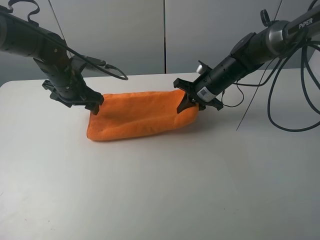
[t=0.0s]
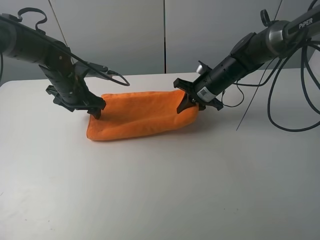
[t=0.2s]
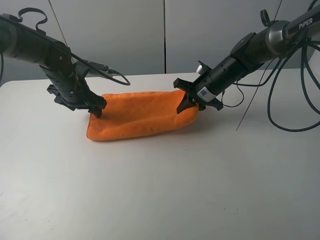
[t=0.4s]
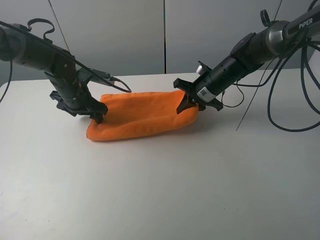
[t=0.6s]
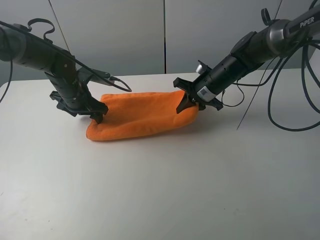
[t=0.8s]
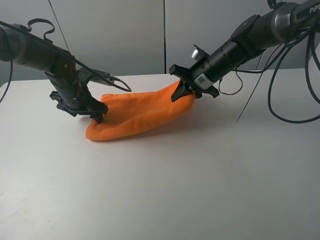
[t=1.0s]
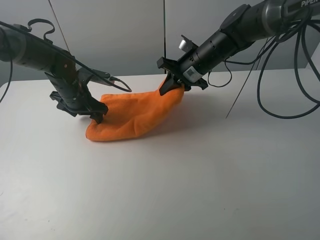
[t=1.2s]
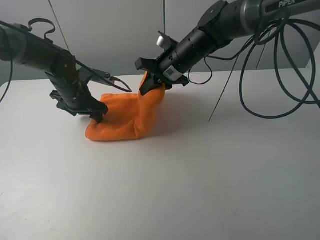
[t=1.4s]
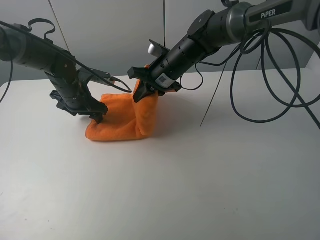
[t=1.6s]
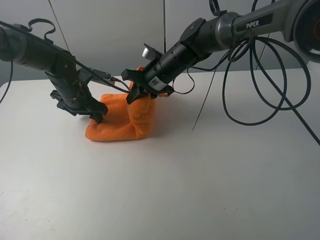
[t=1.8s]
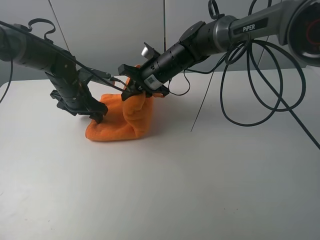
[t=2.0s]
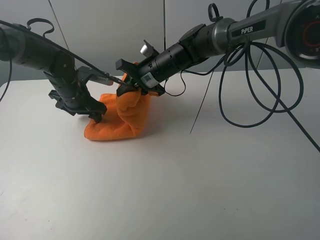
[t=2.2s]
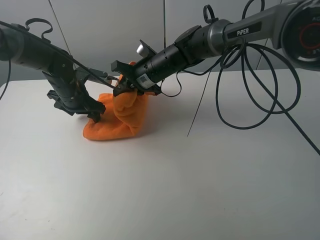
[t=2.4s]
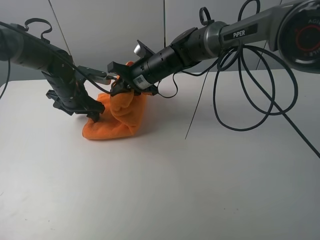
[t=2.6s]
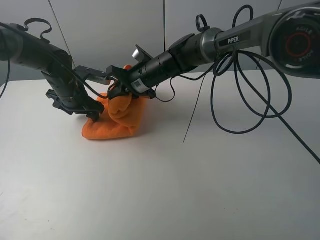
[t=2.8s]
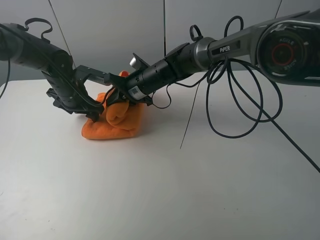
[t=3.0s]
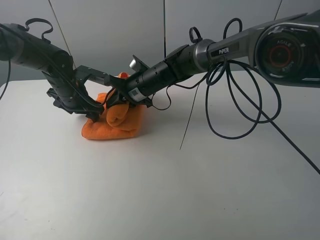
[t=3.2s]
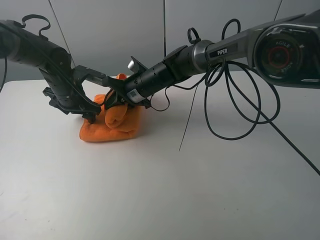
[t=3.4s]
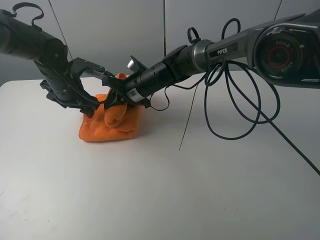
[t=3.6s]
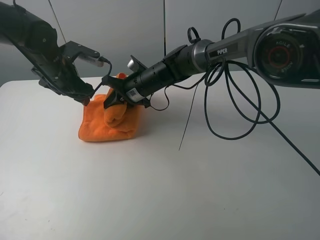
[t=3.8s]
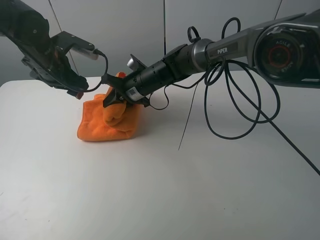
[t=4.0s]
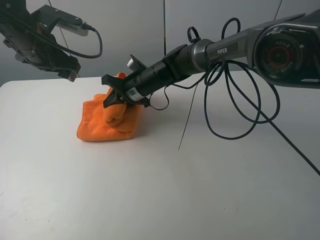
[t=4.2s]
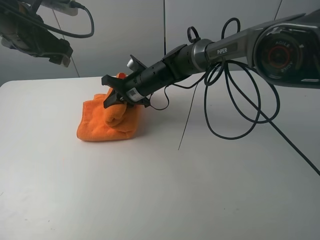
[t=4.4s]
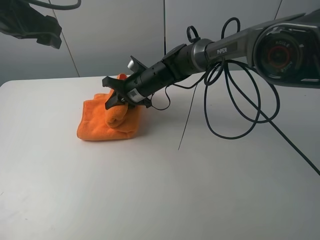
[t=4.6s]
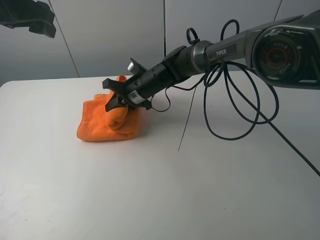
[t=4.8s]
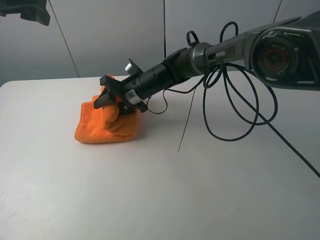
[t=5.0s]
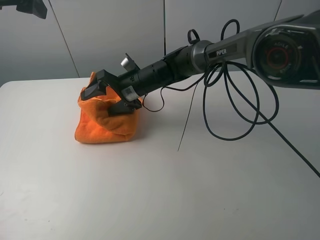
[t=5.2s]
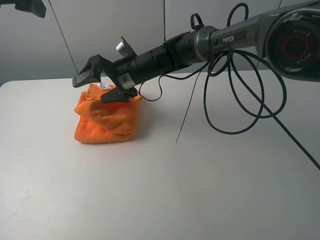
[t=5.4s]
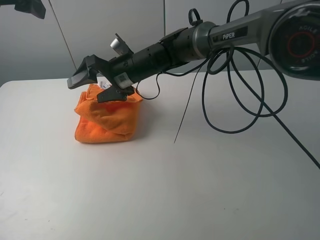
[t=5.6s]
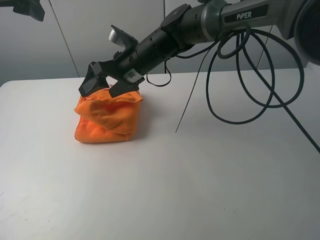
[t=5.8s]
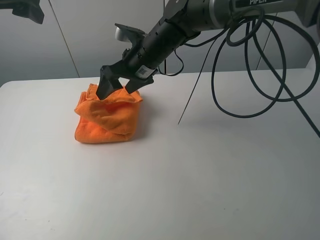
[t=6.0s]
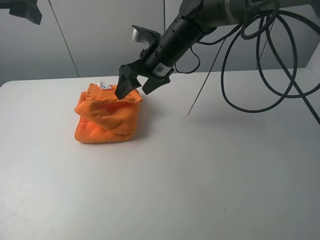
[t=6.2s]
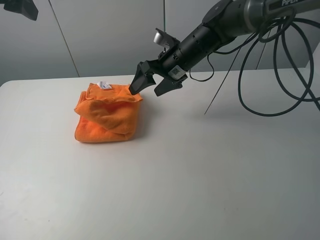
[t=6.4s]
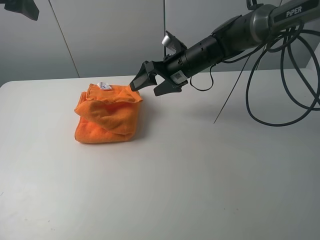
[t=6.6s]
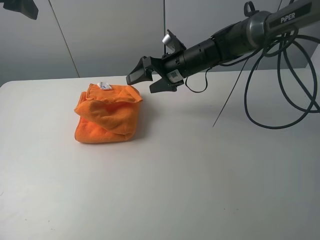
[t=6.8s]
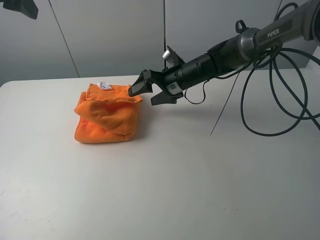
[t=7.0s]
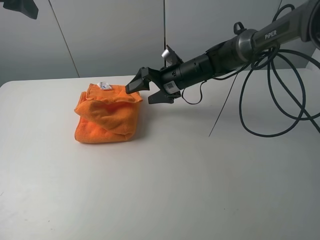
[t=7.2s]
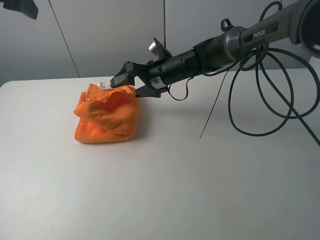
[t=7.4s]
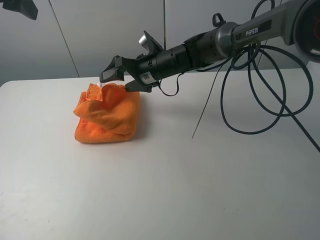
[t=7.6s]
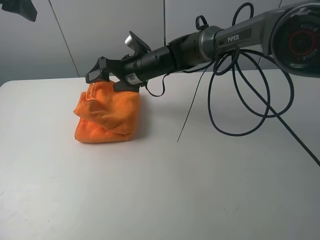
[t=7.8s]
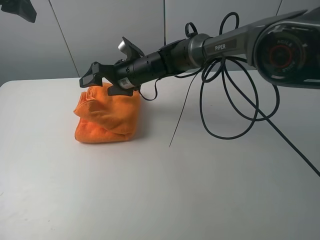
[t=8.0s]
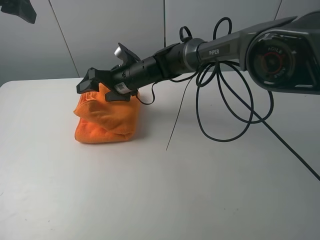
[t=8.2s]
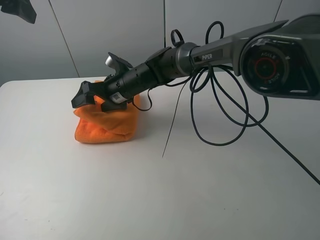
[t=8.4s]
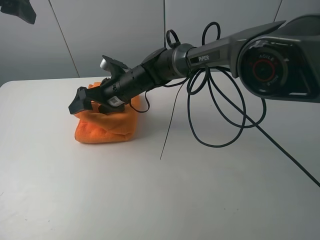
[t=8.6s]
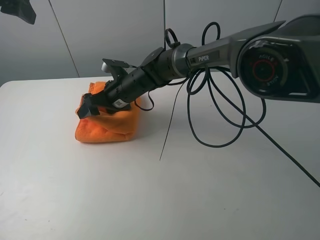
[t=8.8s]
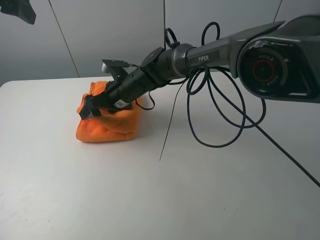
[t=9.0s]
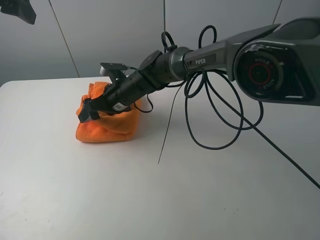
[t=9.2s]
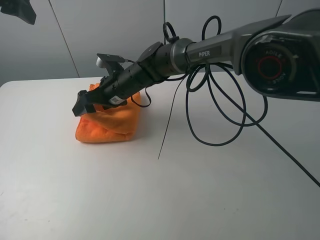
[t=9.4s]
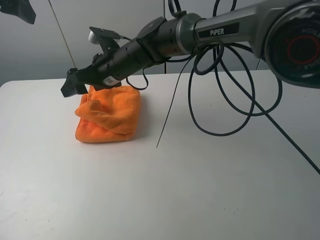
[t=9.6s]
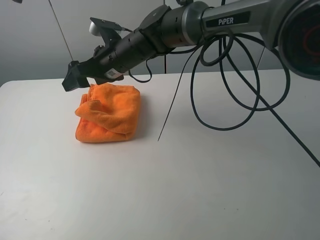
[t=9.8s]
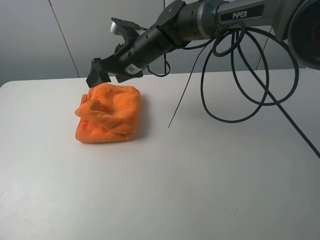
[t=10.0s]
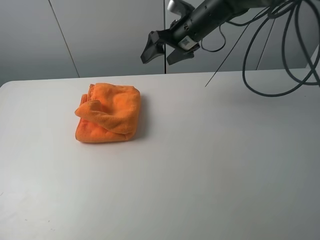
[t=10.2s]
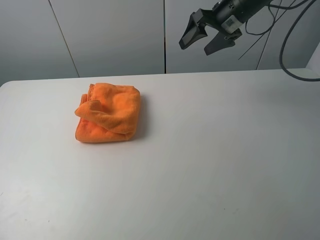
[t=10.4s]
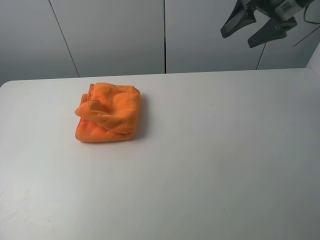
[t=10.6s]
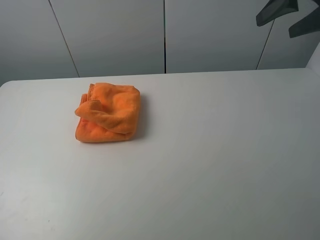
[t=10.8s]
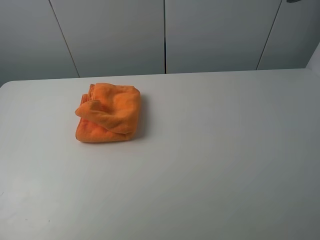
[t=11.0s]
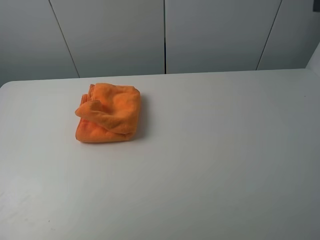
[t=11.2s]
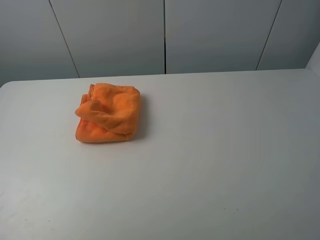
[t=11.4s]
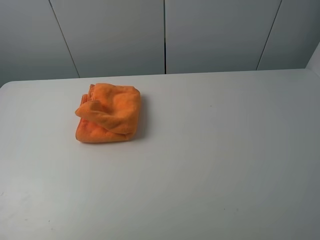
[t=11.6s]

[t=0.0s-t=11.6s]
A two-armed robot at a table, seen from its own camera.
Task of the whole recording: fold the towels on the table.
Step, t=0.0s to t=5.8s: Fold the orange towel from right to left with right gripper.
Step, t=6.0s to t=9.8s: Arrange the orange towel with the right hand.
t=0.0s to t=1.4s: The right gripper moves to the left and upward, roughly 10 cm.
t=1.4s to t=2.8s: The right gripper shifts about 5 cm to the left.
t=2.8s to t=4.4s: The left gripper heads upward, covering some 20 cm.
t=4.4s to t=5.8s: The grippers both shift upward by some 10 cm. The right gripper opens up.
t=5.8s to t=7.2s: The right gripper moves to the right and downward, approximately 10 cm.
t=7.2s to t=8.8s: The right gripper travels to the left by roughly 15 cm.
t=8.8s to t=10.2s: The left gripper is displaced upward and backward by roughly 10 cm; the right gripper travels to the right and upward by some 20 cm.
t=10.2s to t=11.6s: The left gripper moves backward and downward, about 25 cm. Meanwhile the right gripper is displaced backward and to the right by roughly 40 cm.

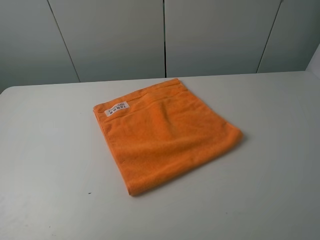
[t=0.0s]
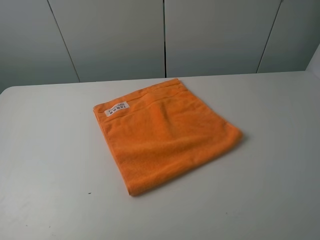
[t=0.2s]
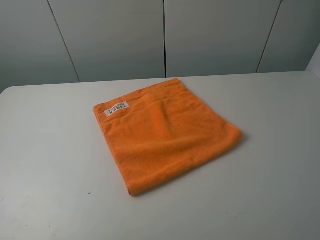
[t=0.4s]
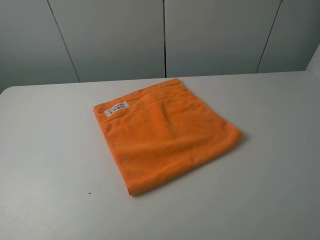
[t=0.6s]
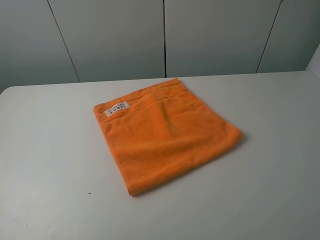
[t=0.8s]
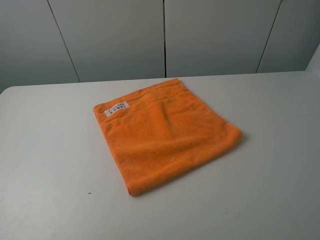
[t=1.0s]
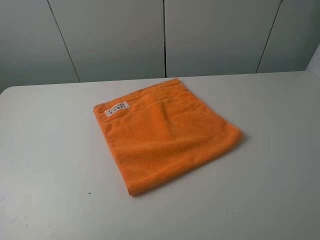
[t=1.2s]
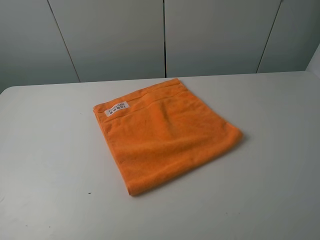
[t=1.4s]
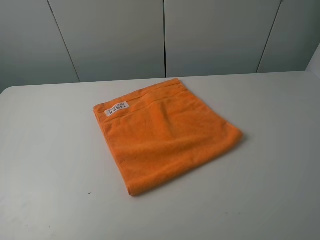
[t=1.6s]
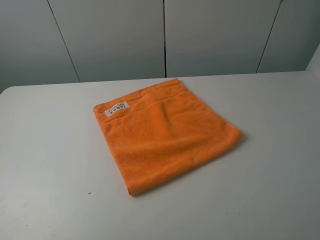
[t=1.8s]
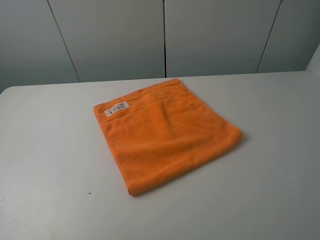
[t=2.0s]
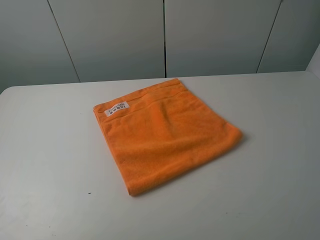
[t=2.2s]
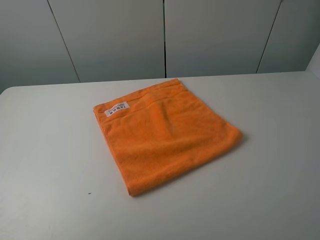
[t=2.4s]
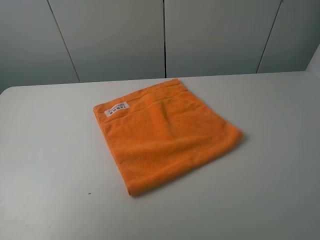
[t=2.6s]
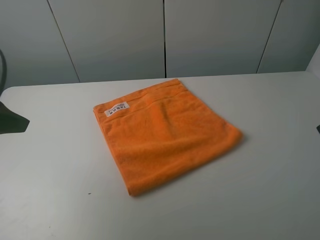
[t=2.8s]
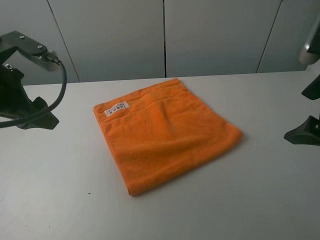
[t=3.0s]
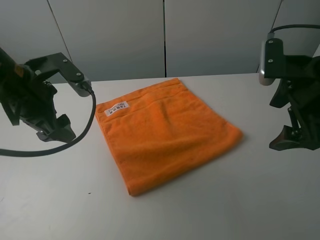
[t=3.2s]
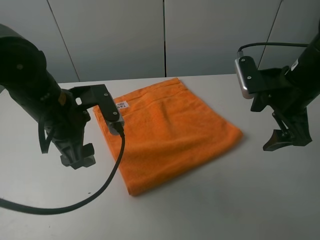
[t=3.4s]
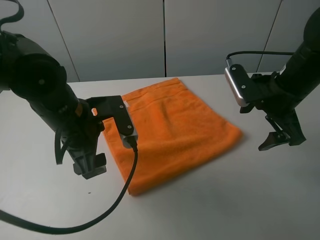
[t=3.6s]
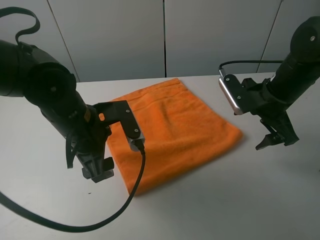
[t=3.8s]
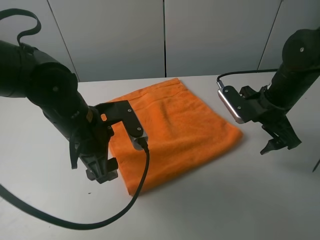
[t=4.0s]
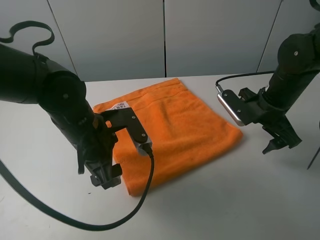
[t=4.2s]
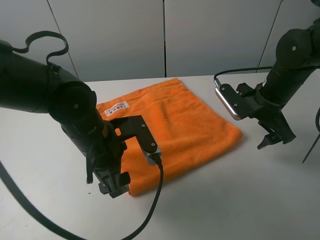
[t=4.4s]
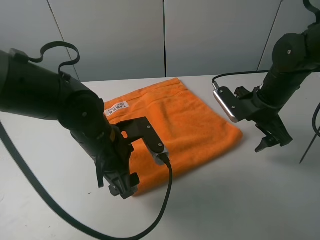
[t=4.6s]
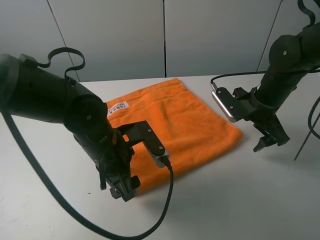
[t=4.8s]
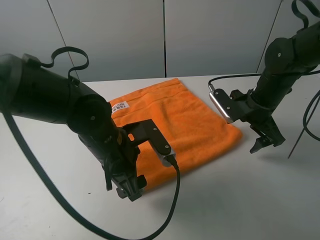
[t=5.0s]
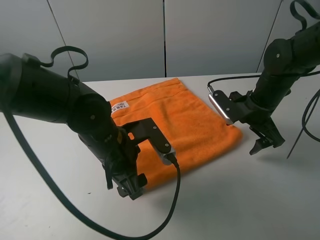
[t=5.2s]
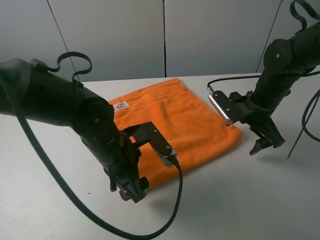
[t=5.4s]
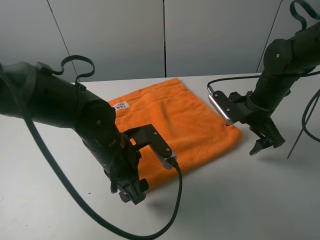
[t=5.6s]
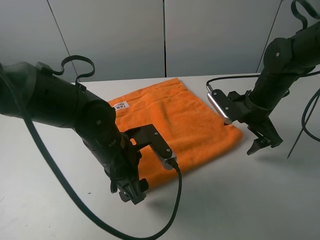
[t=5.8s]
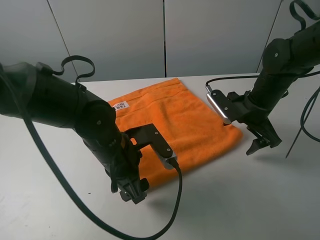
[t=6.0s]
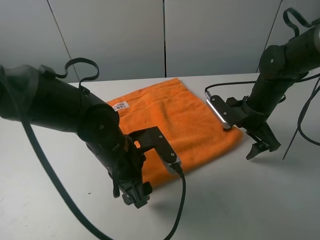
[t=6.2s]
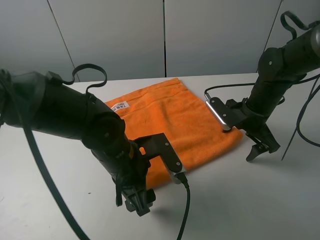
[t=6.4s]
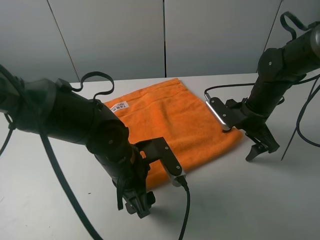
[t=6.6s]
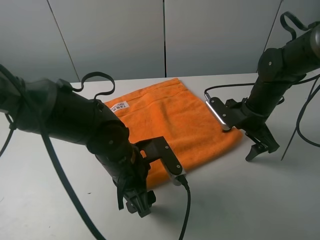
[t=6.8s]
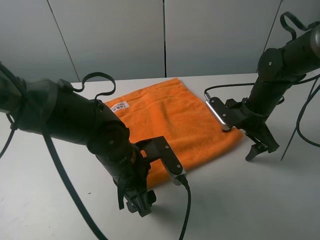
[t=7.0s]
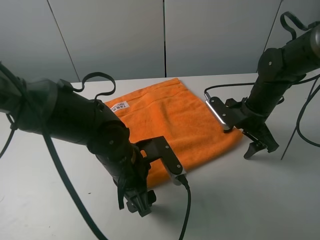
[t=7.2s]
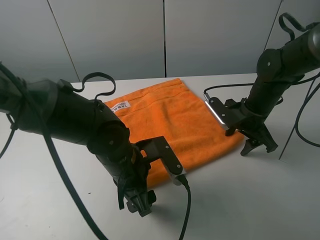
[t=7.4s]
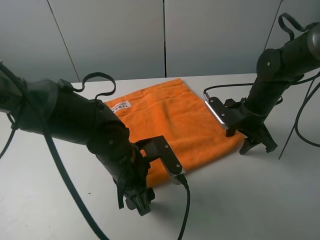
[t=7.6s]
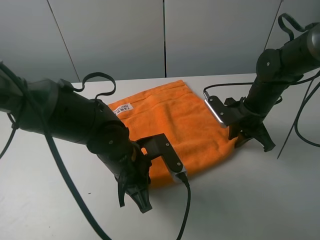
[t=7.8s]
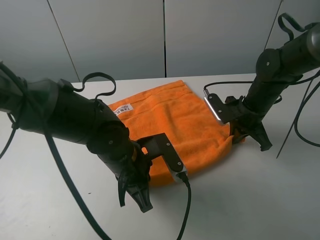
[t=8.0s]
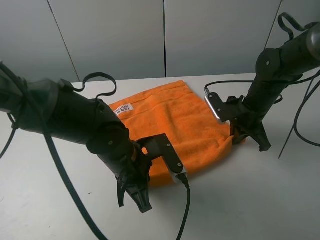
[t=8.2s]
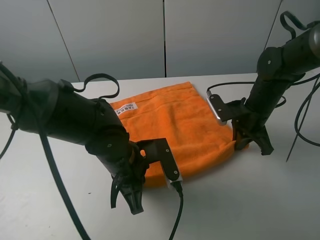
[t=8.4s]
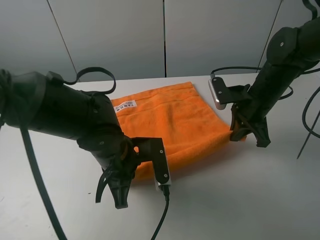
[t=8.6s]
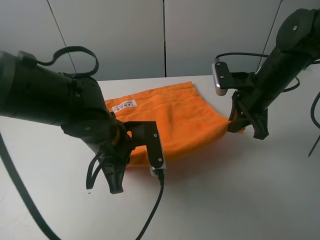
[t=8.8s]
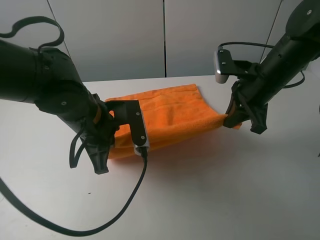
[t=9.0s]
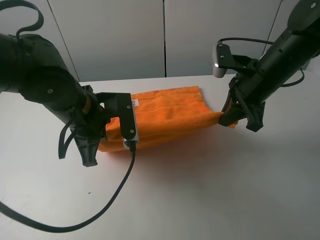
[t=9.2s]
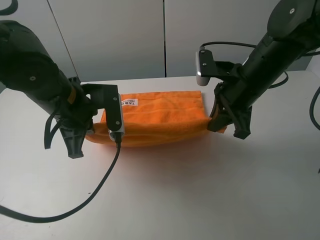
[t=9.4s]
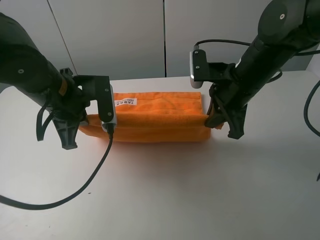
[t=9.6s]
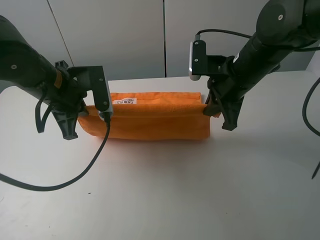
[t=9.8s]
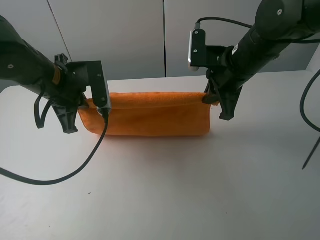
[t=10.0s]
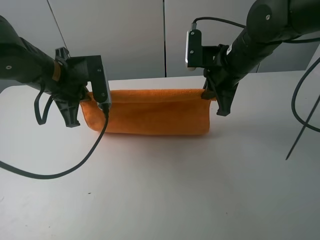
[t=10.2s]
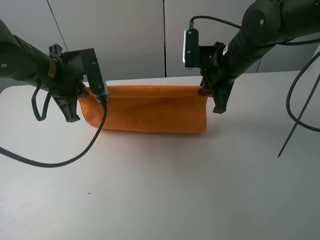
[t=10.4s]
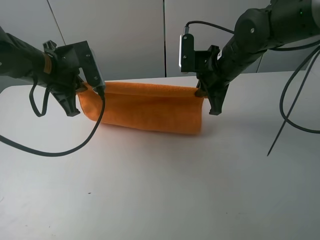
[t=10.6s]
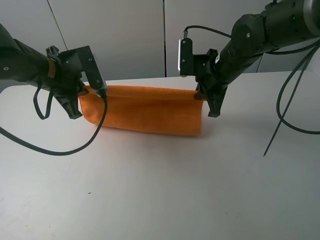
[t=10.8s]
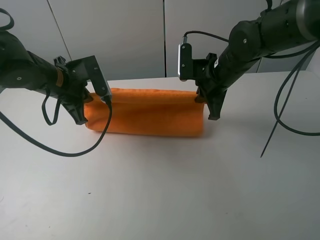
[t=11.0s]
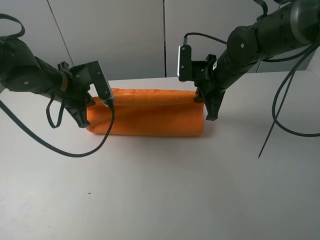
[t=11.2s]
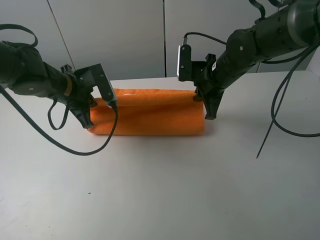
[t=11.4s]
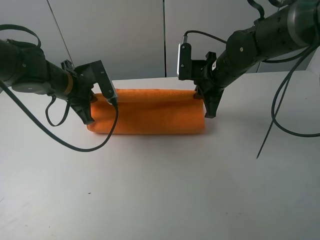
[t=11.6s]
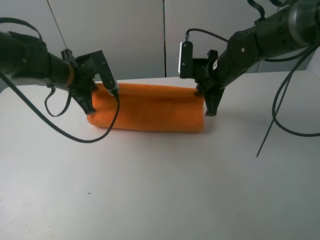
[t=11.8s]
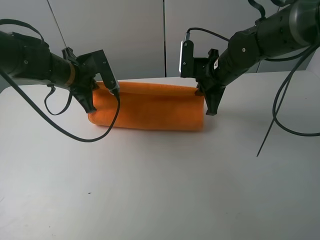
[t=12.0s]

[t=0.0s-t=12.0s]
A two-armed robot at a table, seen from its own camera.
Task of the whole recording: fold the towels on the table.
Step, t=0.0s to t=8.0s: Grasp the orange towel with the left gripper.
t=0.0s to t=1.6s: Neither gripper changes place.
t=1.6s to t=3.0s: The grippers both shift forward by approximately 20 cm.
t=3.0s to t=4.4s: The right gripper is displaced downward and forward by approximately 15 cm; the left gripper is displaced to the right and downward by about 20 cm.
t=4.4s to t=6.0s: The grippers stay close to where they were, moving slightly.
t=6.0s to t=7.6s: The right gripper closes.
t=7.6s to t=9.0s: The left gripper shifts approximately 10 cm upward and to the left, and closes its fingers. The right gripper moves upward, some 10 cm, and closes.
t=9.0s to t=10.4s: The left gripper shifts approximately 10 cm to the left and forward. The right gripper travels to the left by about 5 cm.
t=10.4s to t=12.0s: The left gripper is displaced forward by roughly 5 cm.
